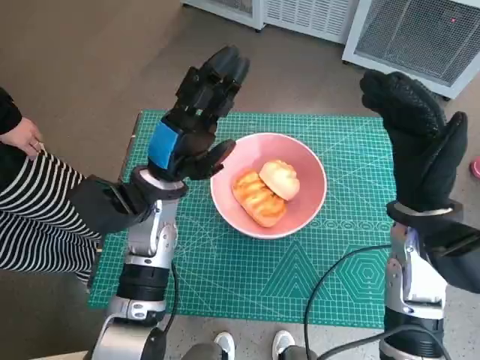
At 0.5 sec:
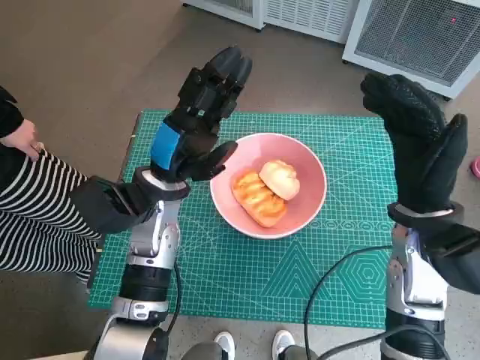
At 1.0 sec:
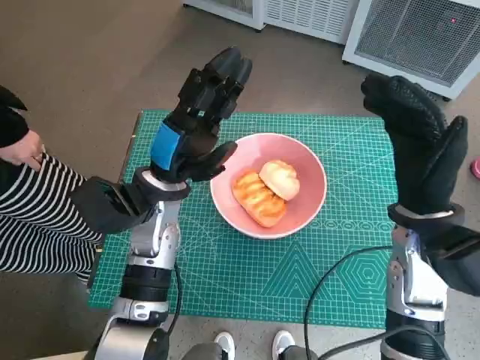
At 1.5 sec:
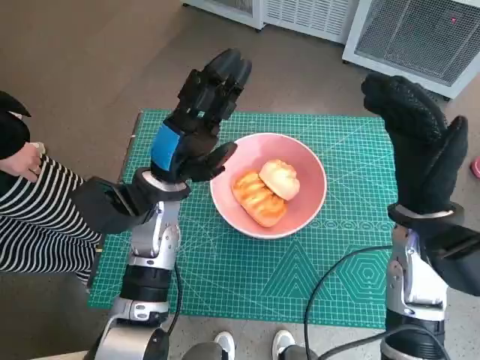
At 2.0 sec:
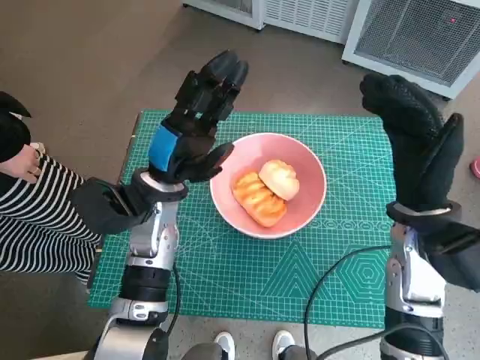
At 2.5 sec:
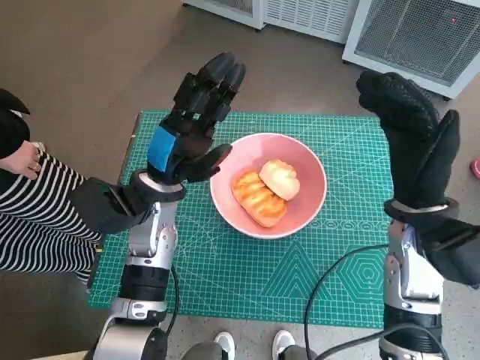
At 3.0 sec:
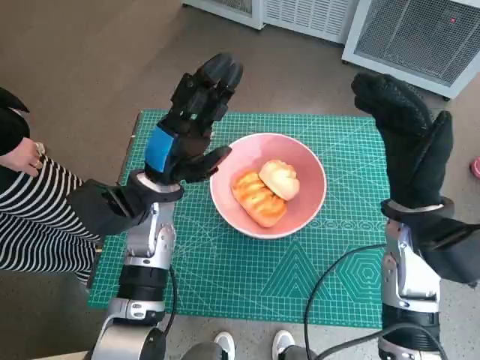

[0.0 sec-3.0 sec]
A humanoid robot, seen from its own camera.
Task of the whole recording: Push the bowl into the center of the table and put the bread into the bowl.
0.0 sec to 3.0 sec: The two hands keep their place.

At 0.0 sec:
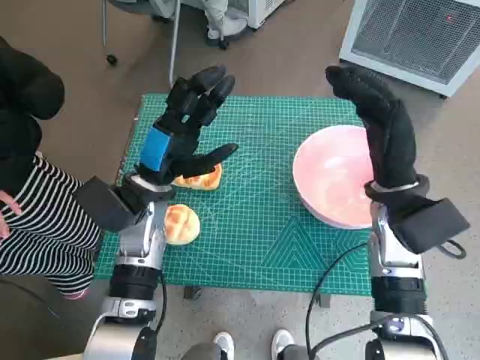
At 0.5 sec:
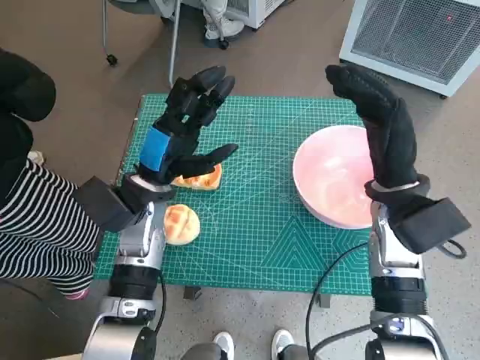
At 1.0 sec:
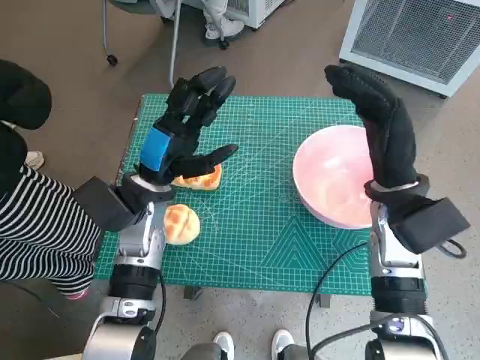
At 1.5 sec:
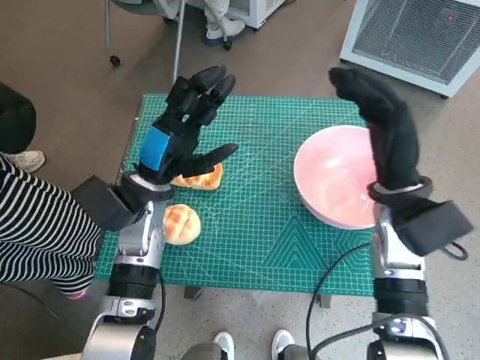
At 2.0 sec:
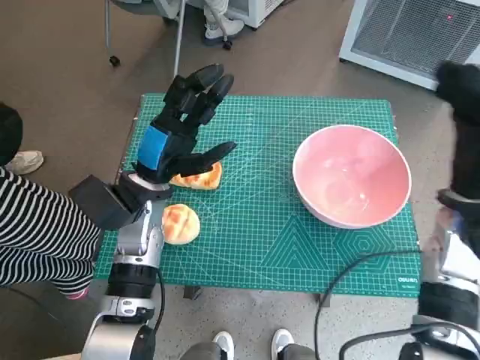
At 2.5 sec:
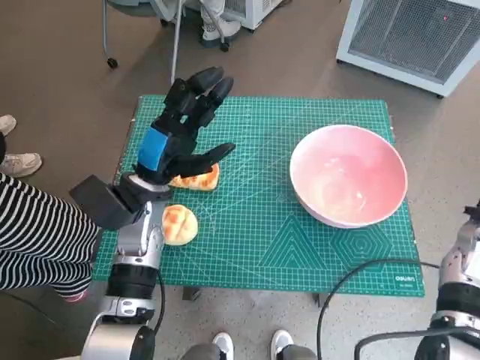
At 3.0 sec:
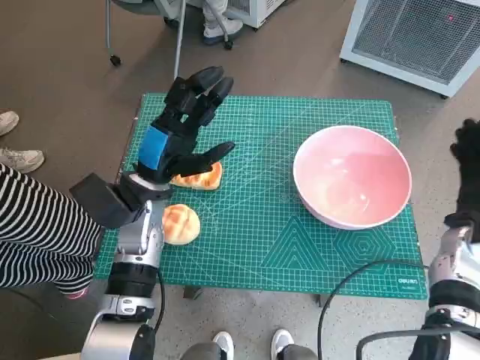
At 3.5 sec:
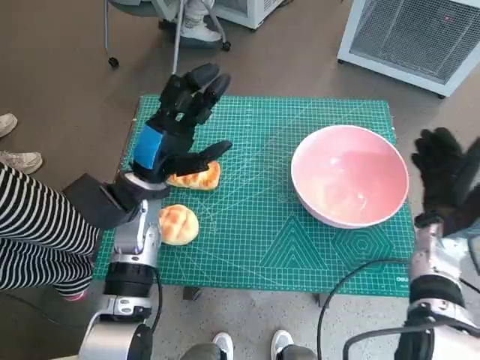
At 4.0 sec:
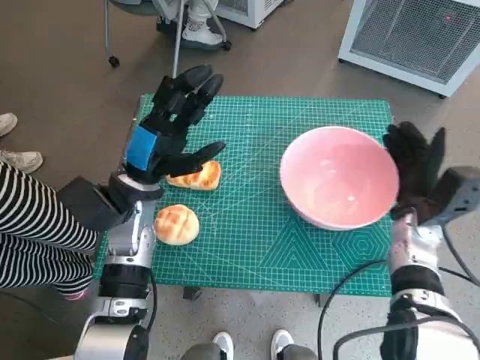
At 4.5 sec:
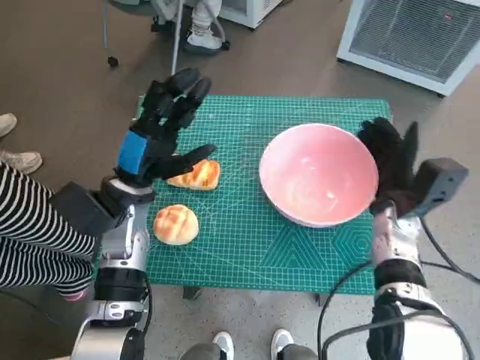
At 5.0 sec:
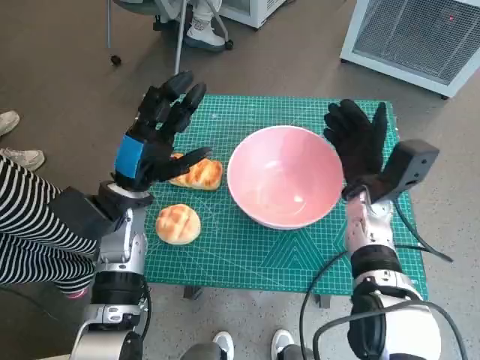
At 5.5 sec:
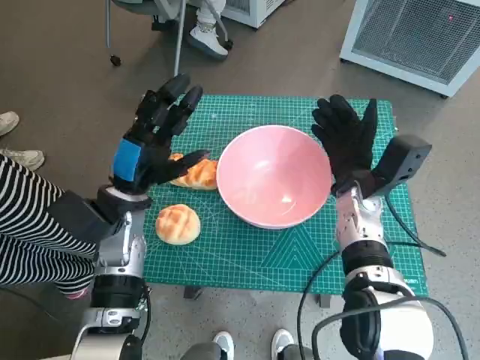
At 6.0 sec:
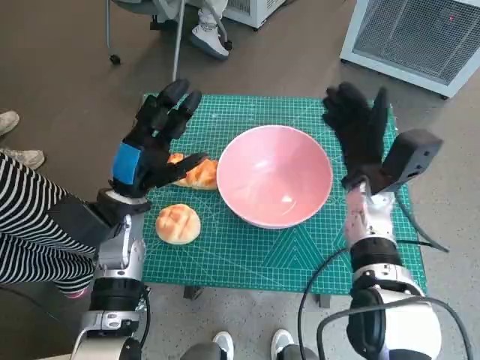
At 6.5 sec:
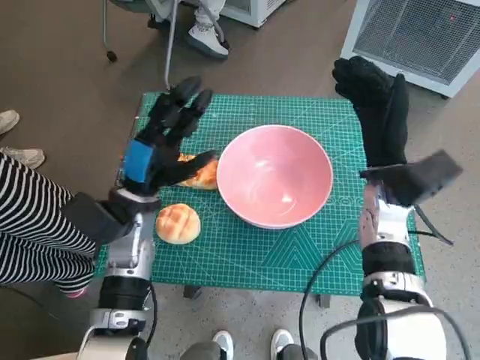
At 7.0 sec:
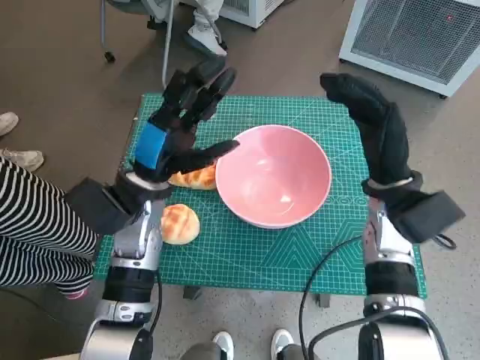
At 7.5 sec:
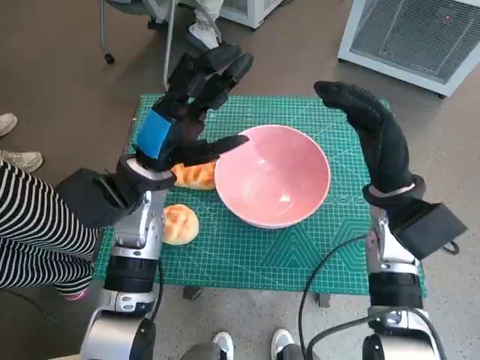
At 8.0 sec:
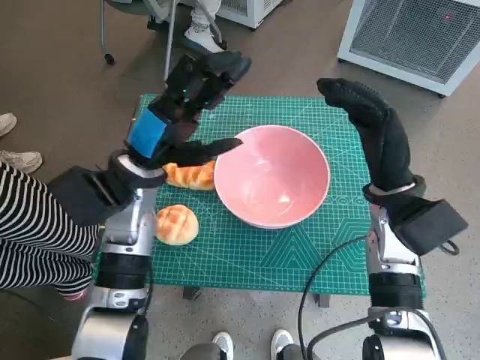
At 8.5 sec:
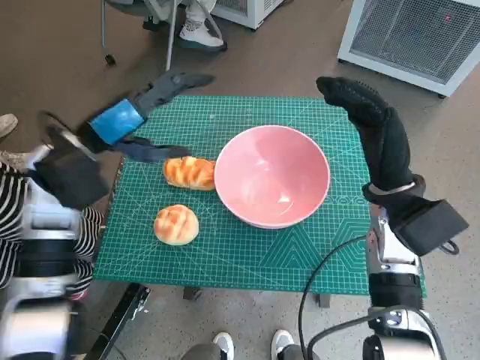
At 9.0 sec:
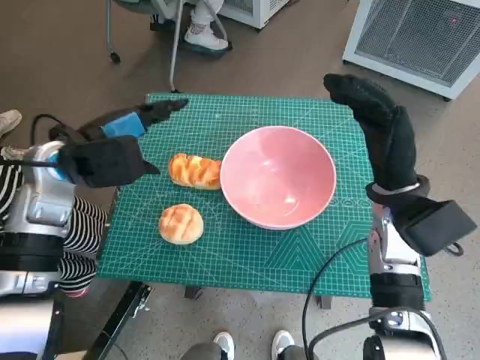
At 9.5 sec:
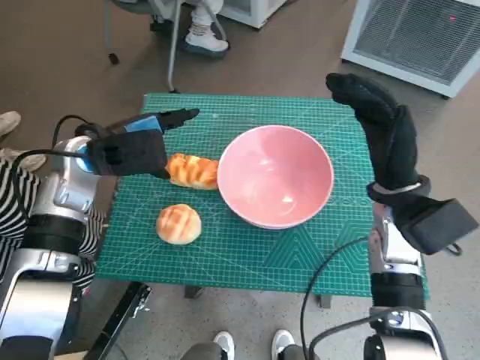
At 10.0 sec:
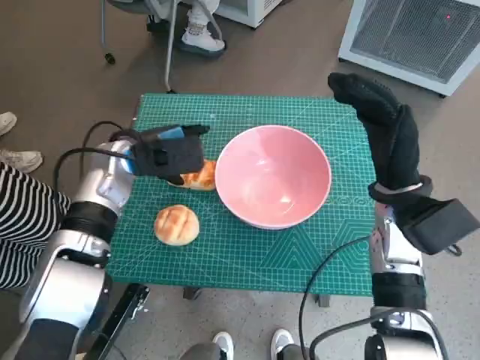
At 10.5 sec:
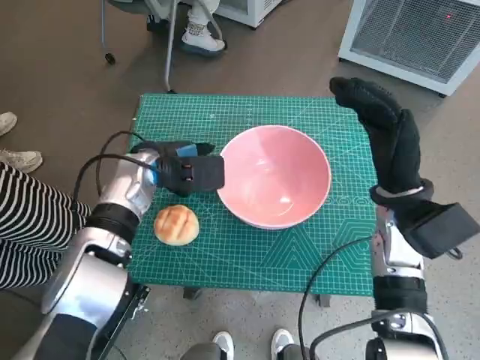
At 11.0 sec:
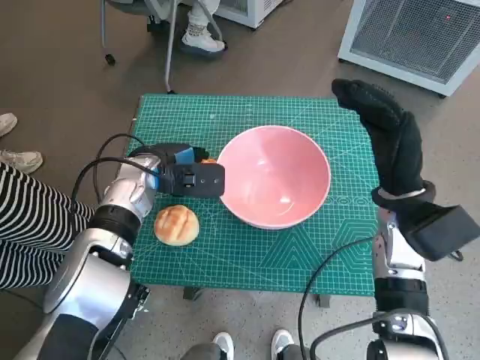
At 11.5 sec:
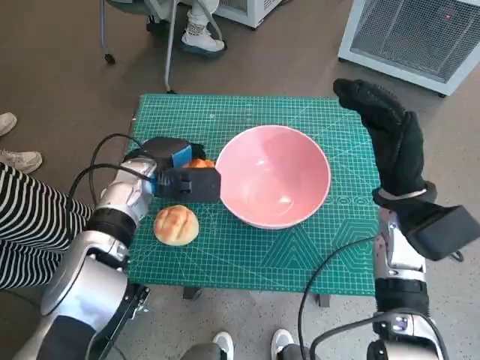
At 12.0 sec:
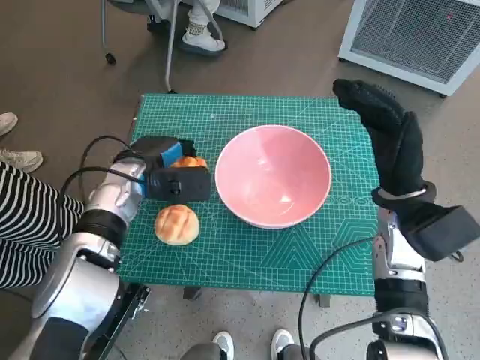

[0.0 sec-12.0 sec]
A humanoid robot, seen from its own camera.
Task of the whole recording: Push the bowl into the center of the table and put the bread into the bowl.
Step, 0.0 sec to 6.0 sec: Move the pink bowl to the center of table with right hand.
Step, 6.5 sec to 11.0 sec: Grasp the long bread with left hand.
2.0 sec to 4.0 sec: The right hand shifts roughly 10 cm downward.
4.0 sec to 6.0 sec: The right hand is displaced to the left by some 10 cm.
6.0 sec to 8.0 sec: The right hand changes place by approximately 5 cm. The left hand goes about 5 cm upward.
8.0 sec to 10.0 sec: The left hand changes place by approximately 5 cm.
10.0 sec to 12.0 sec: The hands stay close to where they were, moving slightly.

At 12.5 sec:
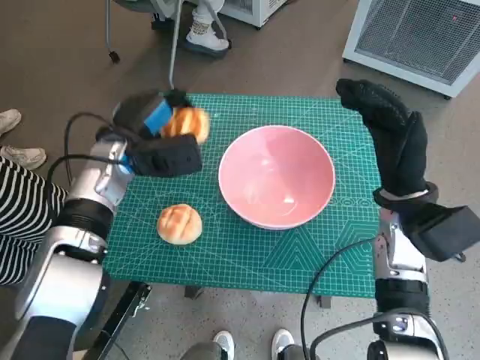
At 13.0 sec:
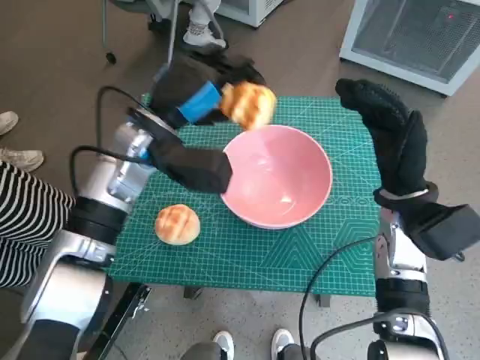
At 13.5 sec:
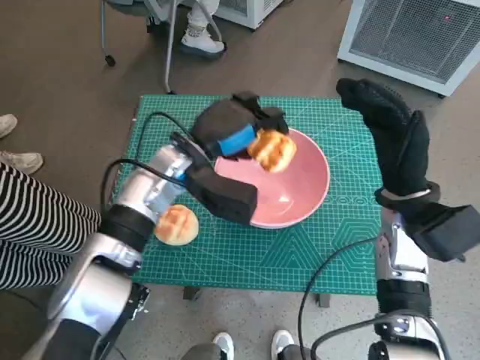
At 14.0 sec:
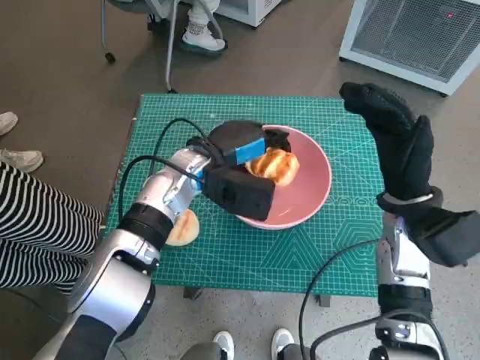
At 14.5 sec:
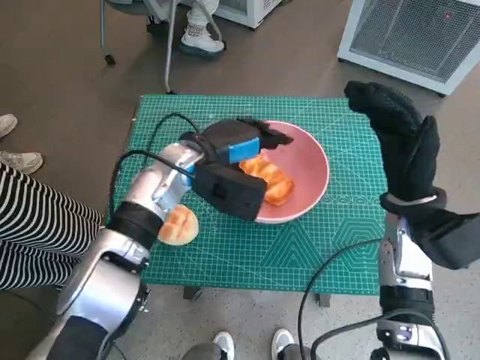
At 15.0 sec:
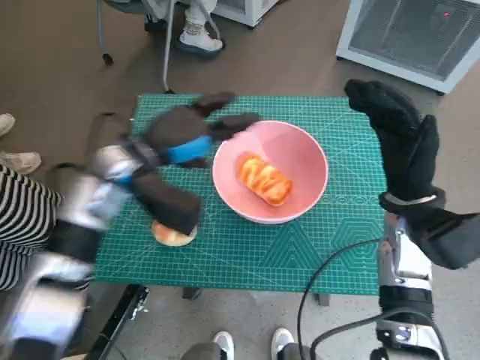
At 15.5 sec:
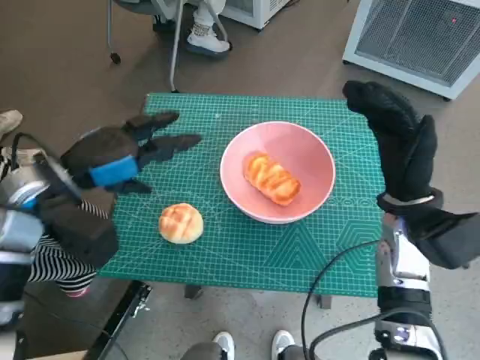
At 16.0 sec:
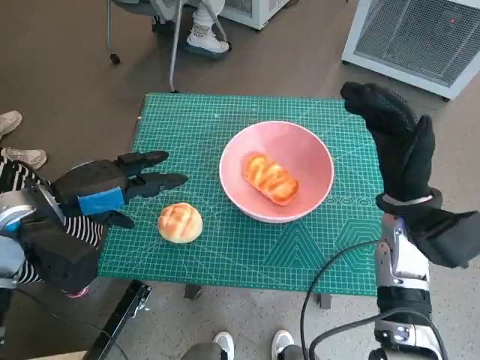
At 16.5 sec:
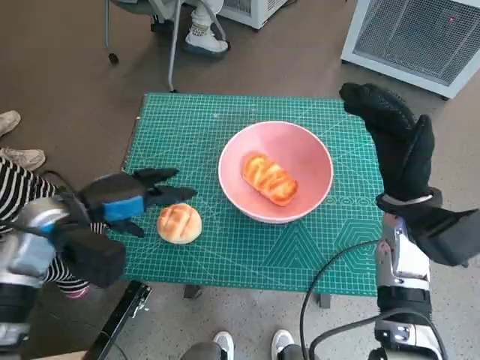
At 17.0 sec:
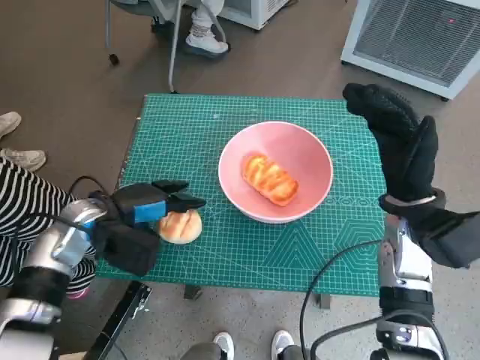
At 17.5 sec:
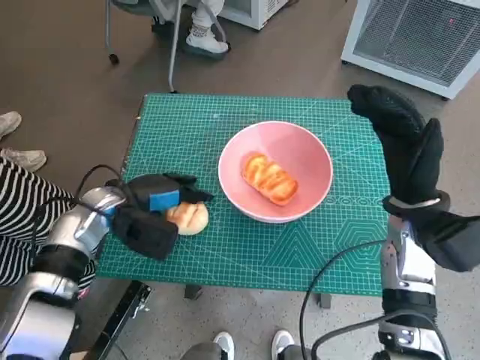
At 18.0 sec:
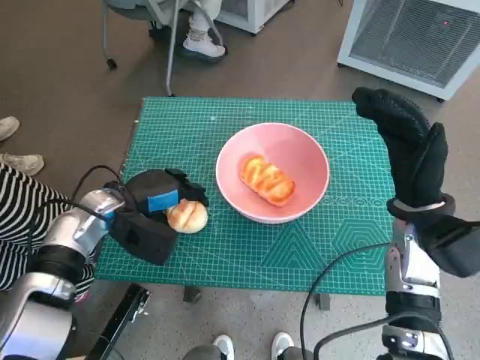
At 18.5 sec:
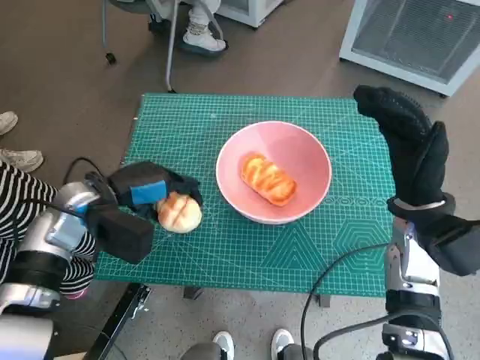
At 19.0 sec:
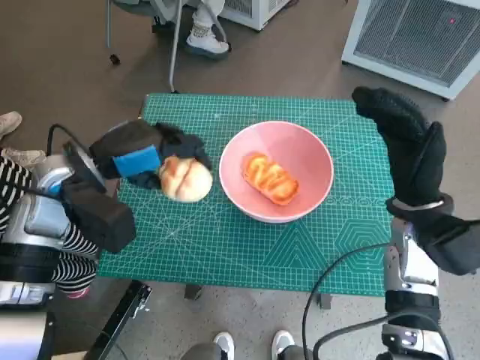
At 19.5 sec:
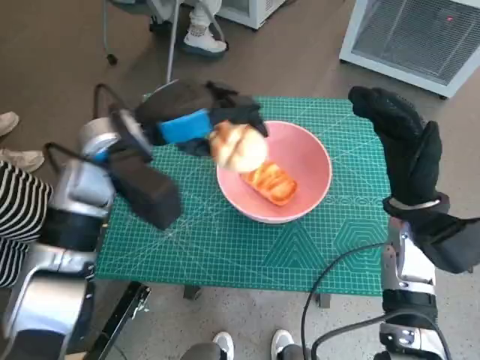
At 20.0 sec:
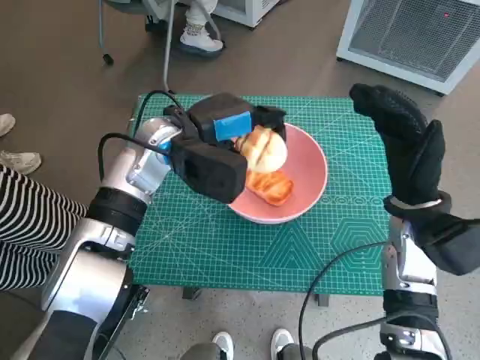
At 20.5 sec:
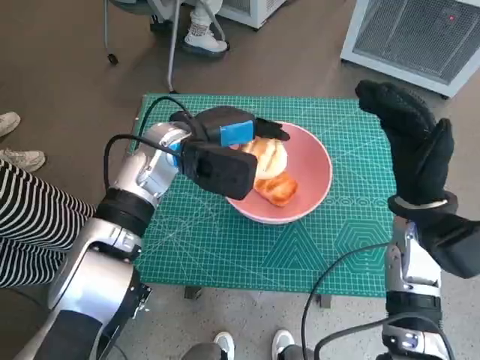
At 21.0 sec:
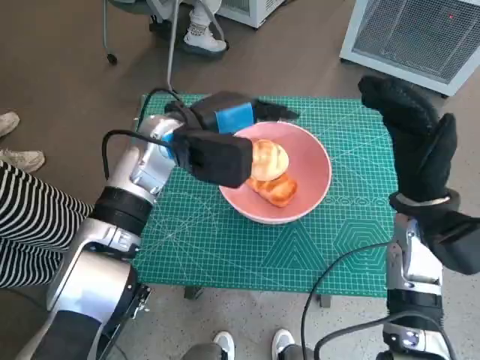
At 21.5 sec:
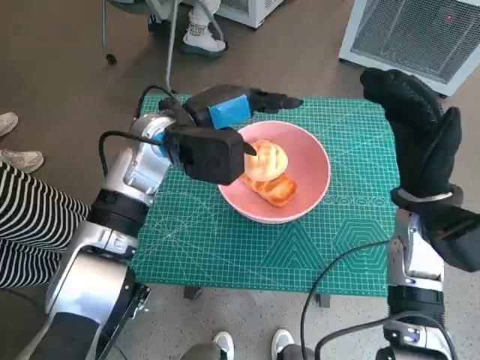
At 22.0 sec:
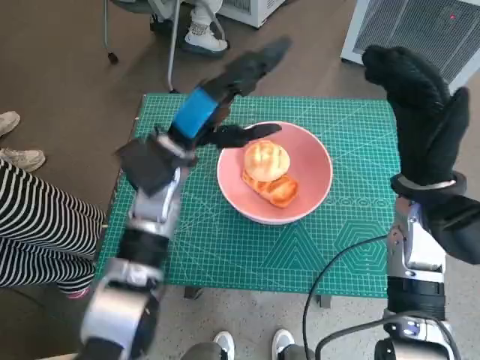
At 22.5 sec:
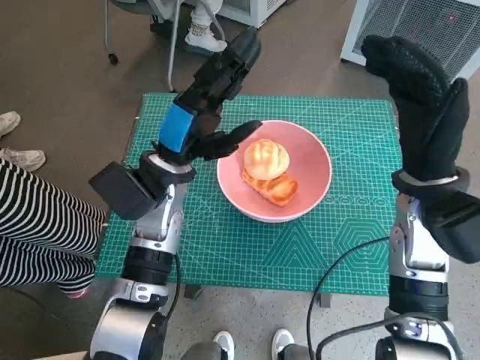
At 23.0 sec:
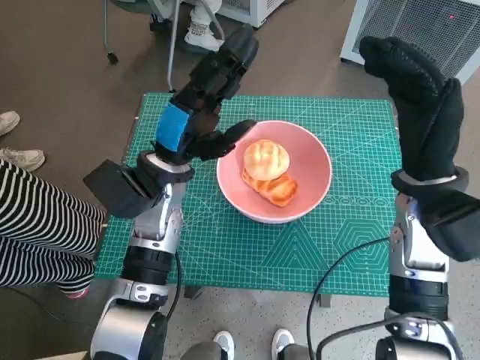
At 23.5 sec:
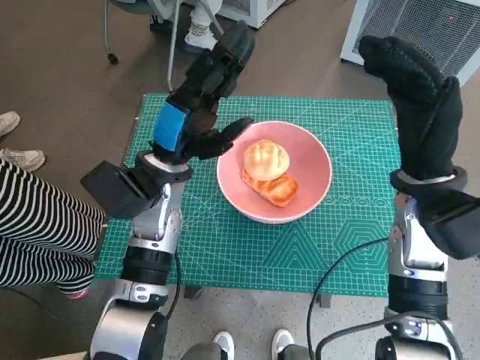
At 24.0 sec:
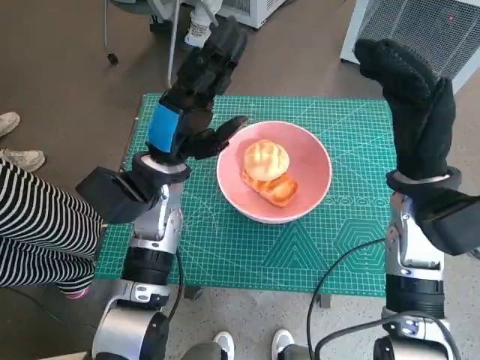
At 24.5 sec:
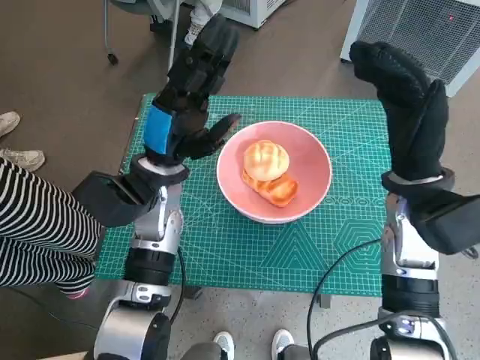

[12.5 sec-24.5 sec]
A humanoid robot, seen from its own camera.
Task of the whole recording: Push the bowl into the center of the table and put the bread into the bowl.
Step, 12.5 sec to 14.5 sec: Place the long bread in pink bowl with left hand.
Step, 15.5 sec to 17.5 sec: Grasp the round bread with left hand.
Step, 18.0 sec to 21.5 sec: Place the round bread in pink bowl with left hand.
12.5 sec to 14.5 sec: The left hand shifts roughly 10 cm to the right.
14.5 sec to 16.5 sec: The left hand goes roughly 20 cm to the left and backward.
18.5 sec to 20.5 sec: The left hand shifts about 15 cm to the right, forward and upward.
20.5 sec to 22.5 sec: The left hand changes place by approximately 5 cm.
